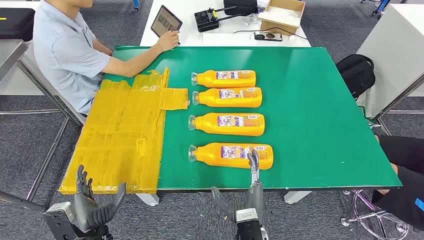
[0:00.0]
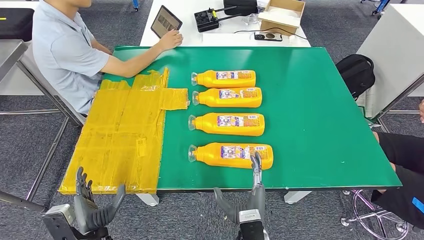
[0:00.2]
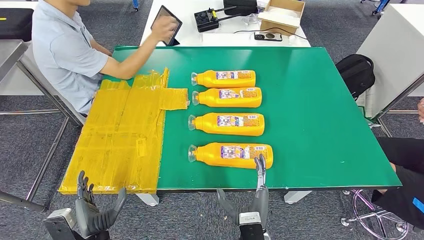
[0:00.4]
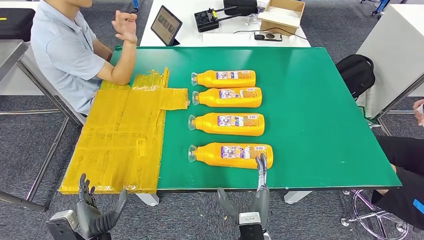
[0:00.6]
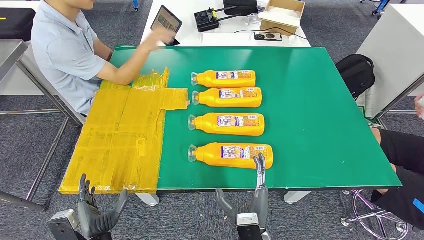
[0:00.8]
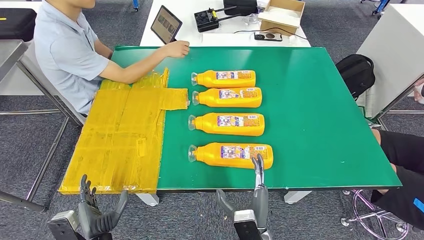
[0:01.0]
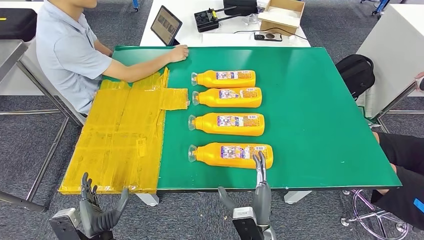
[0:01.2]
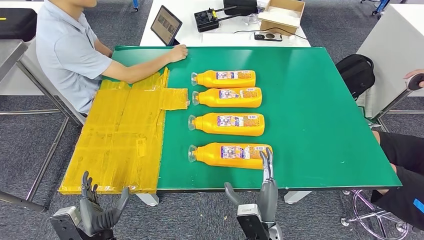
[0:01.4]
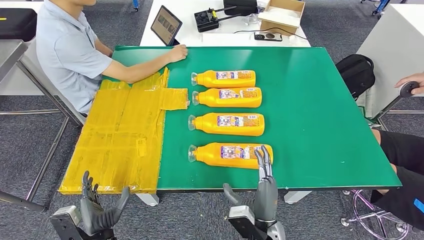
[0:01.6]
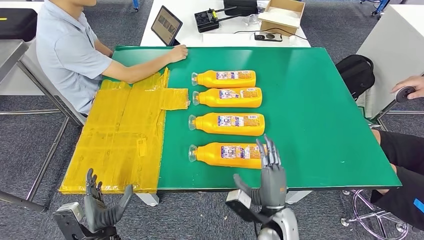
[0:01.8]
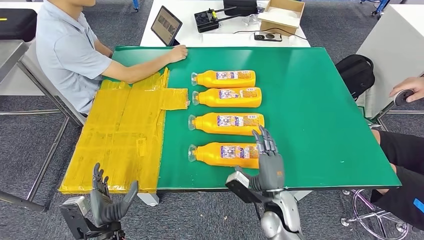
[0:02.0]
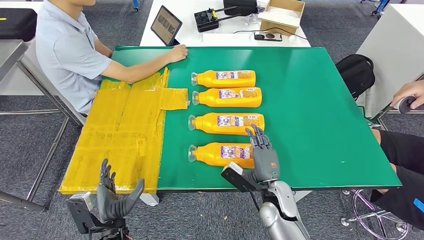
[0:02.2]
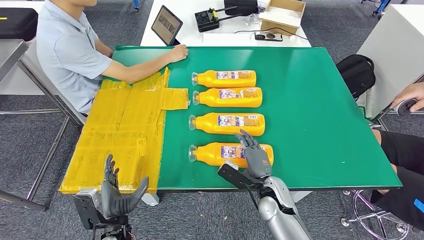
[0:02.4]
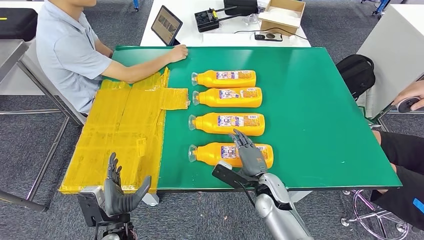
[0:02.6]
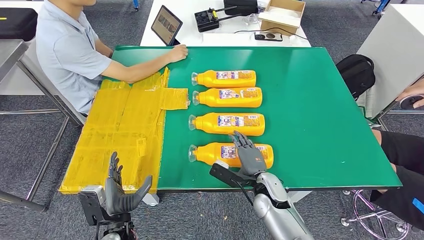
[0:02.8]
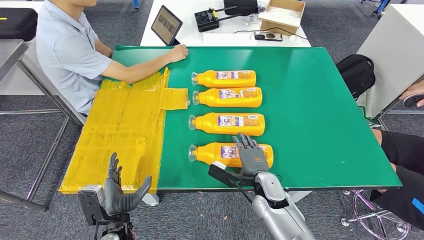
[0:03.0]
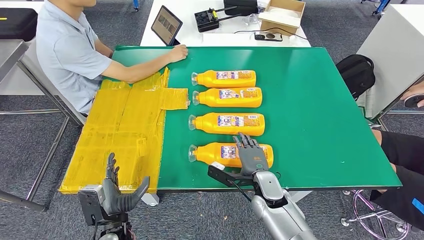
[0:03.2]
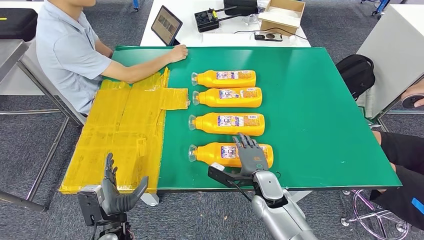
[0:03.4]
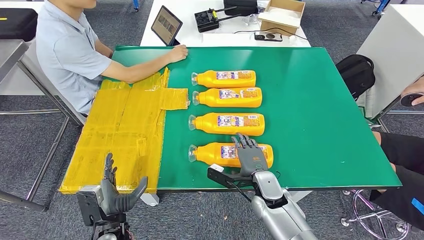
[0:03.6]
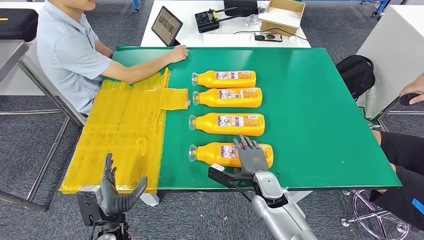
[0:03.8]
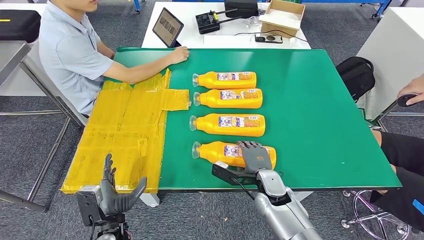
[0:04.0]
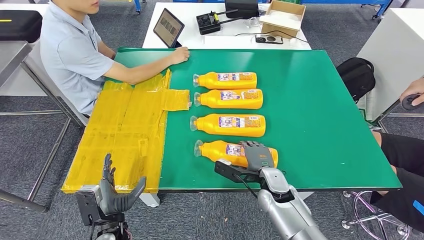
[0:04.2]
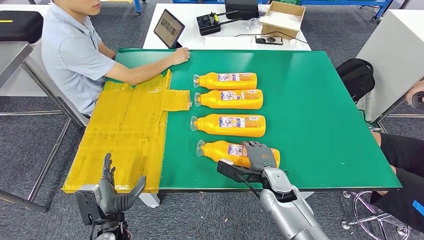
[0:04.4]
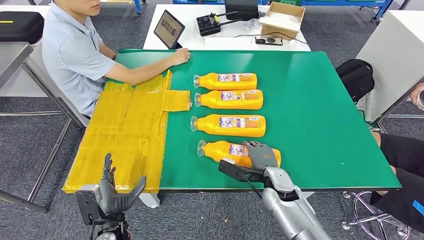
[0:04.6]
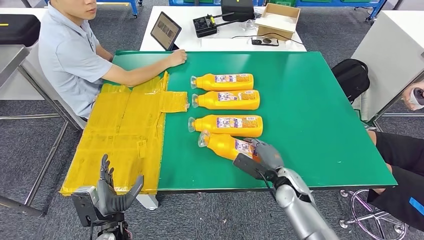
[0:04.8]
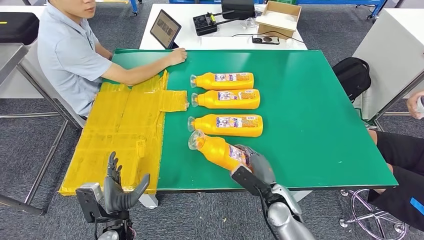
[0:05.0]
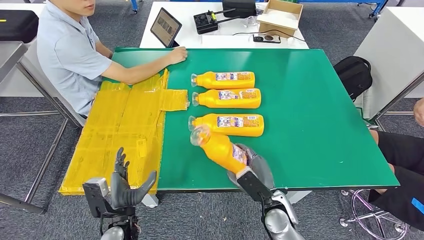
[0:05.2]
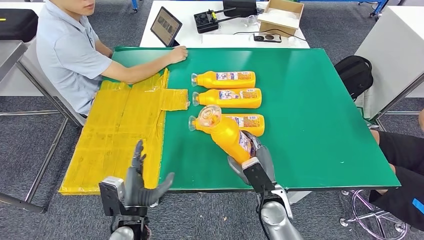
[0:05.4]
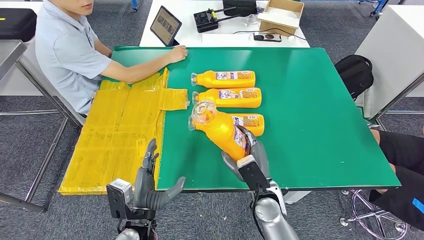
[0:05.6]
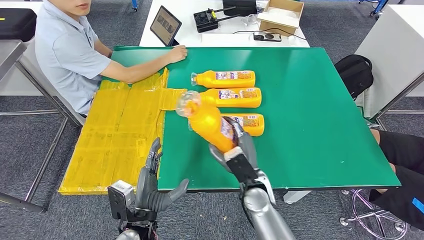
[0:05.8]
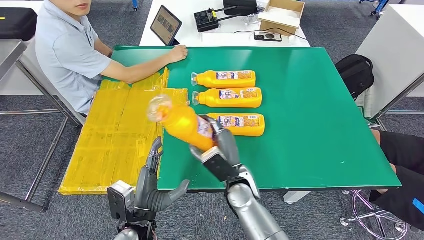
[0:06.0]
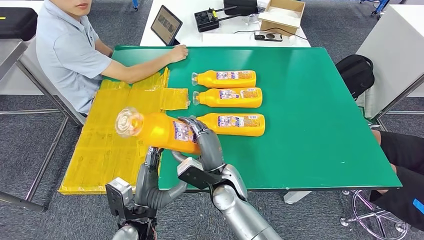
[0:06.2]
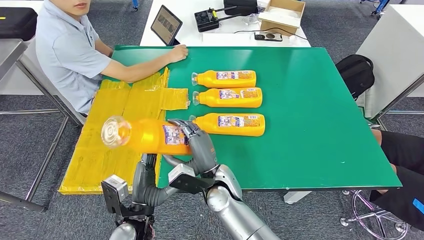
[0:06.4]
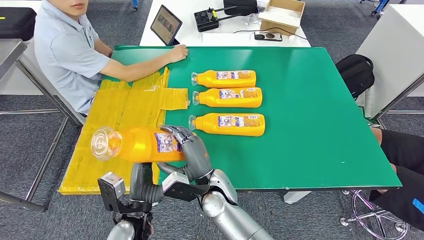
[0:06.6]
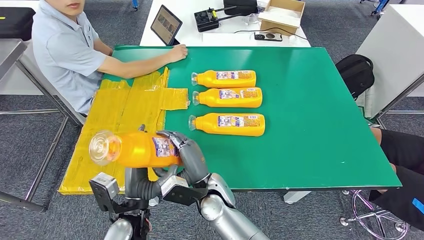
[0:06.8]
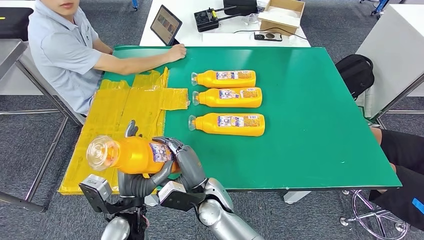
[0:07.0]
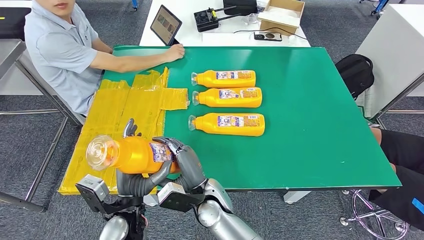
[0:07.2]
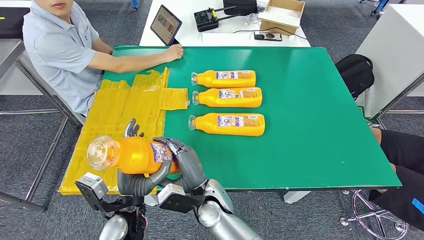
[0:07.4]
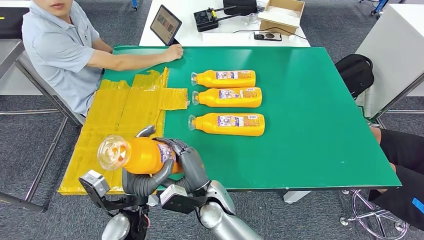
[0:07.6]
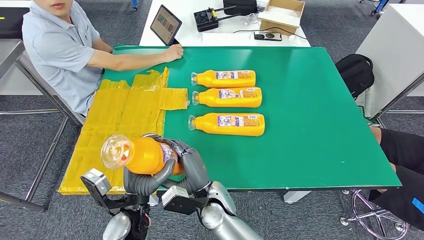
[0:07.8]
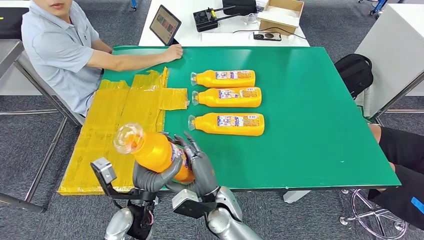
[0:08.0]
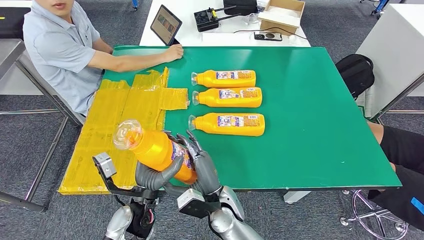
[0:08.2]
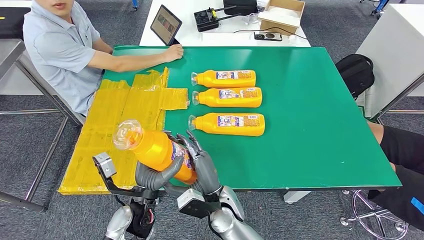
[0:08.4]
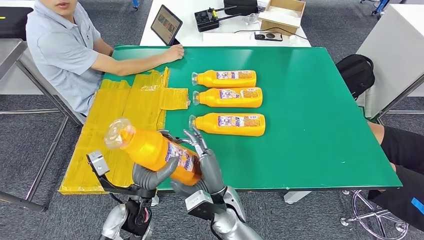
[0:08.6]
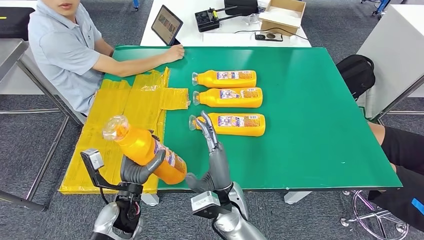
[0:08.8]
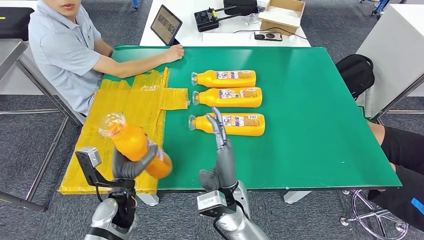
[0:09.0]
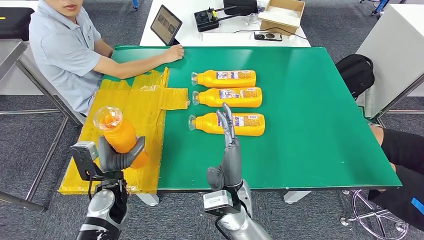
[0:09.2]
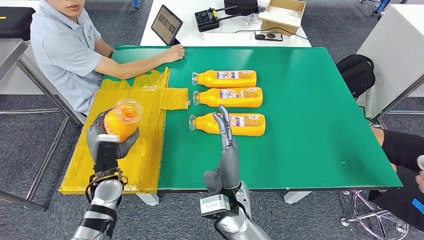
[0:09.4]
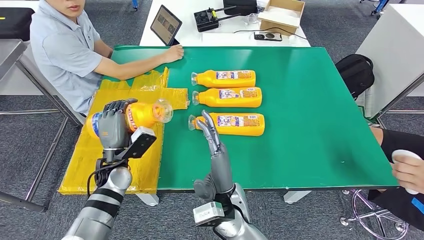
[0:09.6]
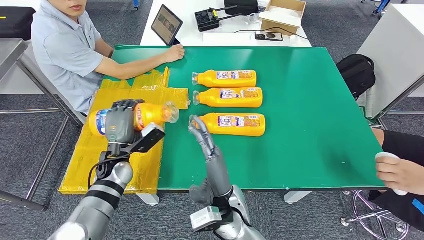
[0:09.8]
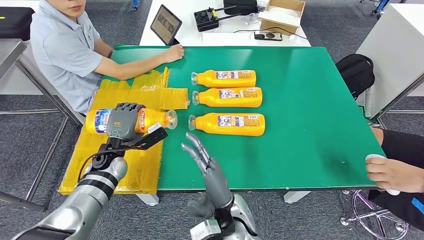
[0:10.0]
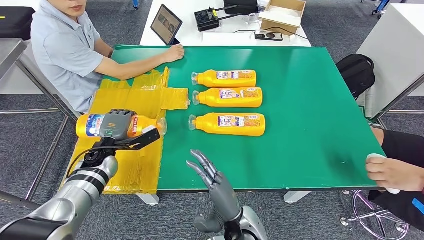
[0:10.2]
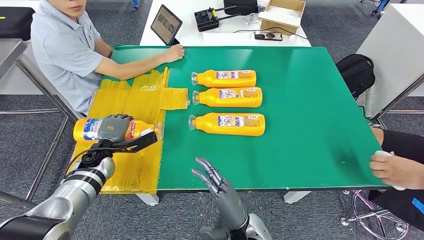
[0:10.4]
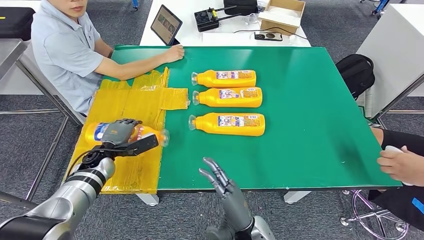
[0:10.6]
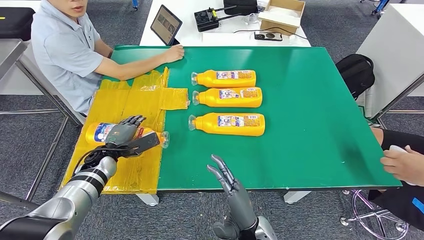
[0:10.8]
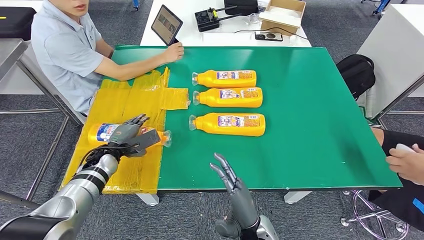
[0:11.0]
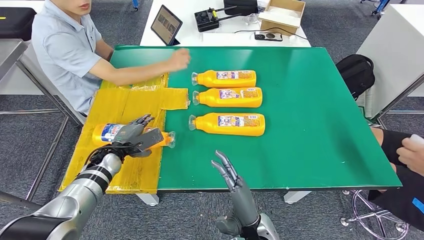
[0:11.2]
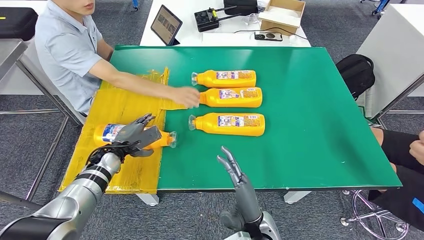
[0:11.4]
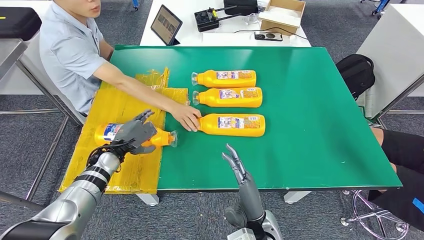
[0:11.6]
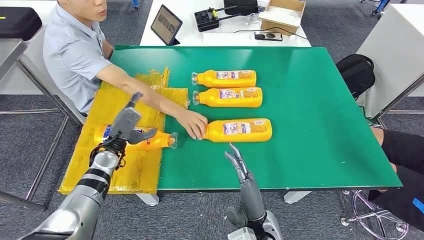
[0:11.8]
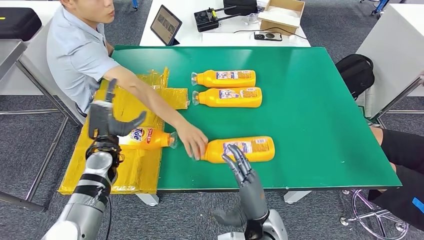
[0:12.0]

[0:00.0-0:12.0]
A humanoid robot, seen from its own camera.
Step, 0:00.0 to 0:07.0: Take the fast-moving consumer goods bottle from the table.
Step, 0:07.2 to 0:12.0: Flip the fast-moving consumer goods bottle to the front side.
0:01.6 to 0:03.0: The right hand shifts about 10 cm forward.
0:06.0 to 0:07.6: The right hand heads to the left, covering about 10 cm.
0:07.6 to 0:09.0: The left hand changes place by some 5 cm, while the right hand shifts by about 5 cm.
0:09.0 to 0:10.4: The left hand goes about 15 cm forward and to the left; the right hand goes approximately 10 cm backward and downward.

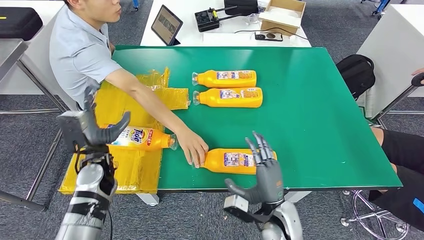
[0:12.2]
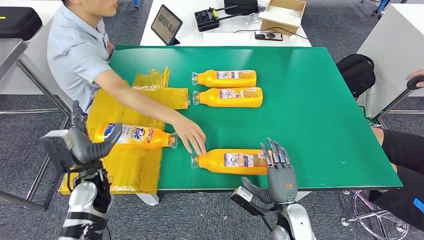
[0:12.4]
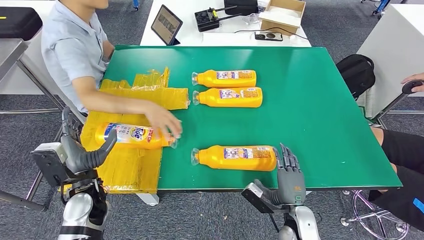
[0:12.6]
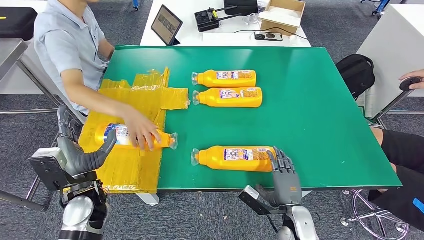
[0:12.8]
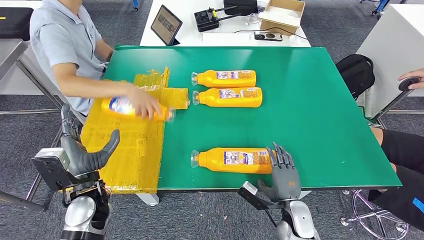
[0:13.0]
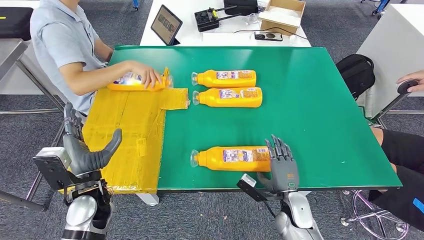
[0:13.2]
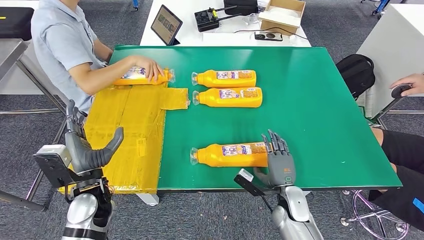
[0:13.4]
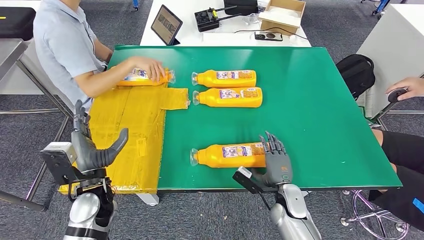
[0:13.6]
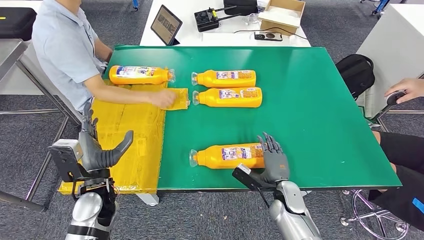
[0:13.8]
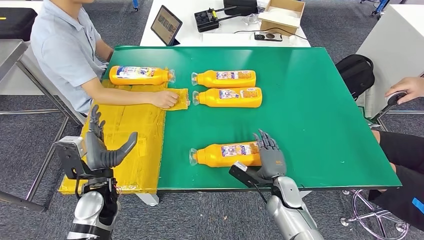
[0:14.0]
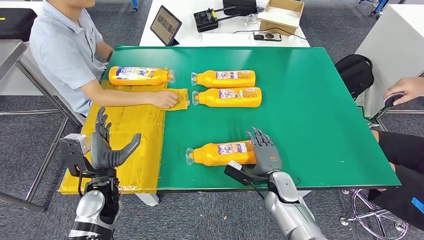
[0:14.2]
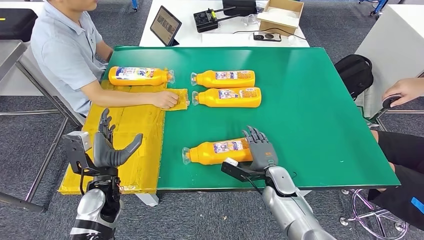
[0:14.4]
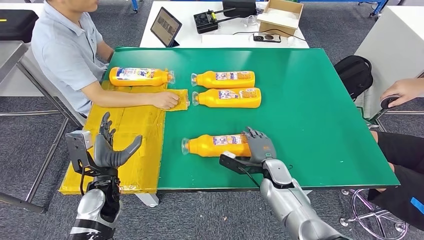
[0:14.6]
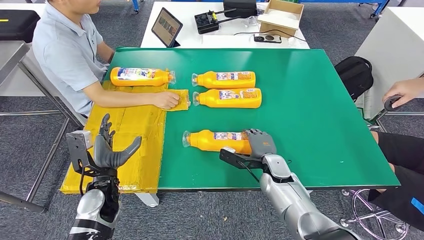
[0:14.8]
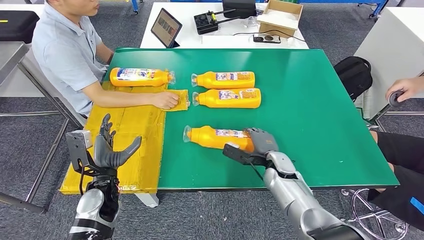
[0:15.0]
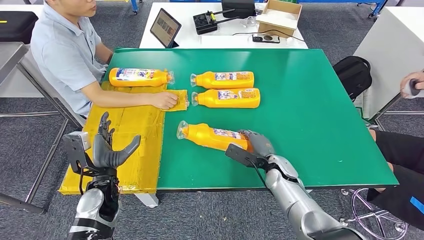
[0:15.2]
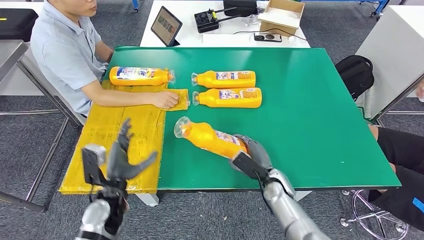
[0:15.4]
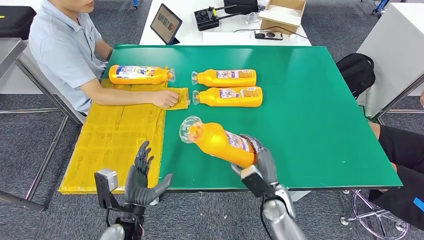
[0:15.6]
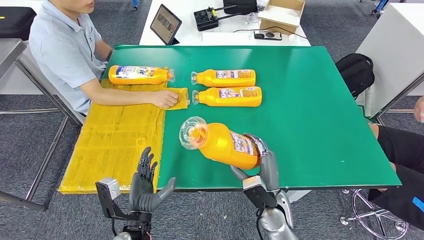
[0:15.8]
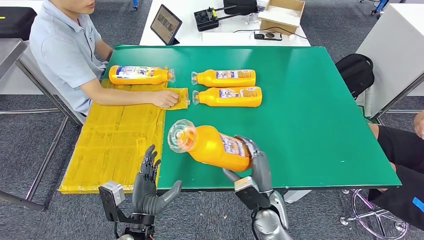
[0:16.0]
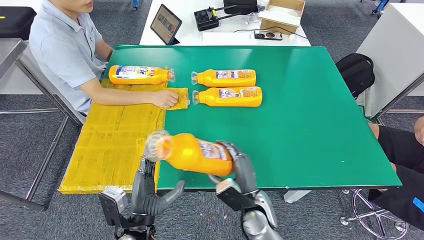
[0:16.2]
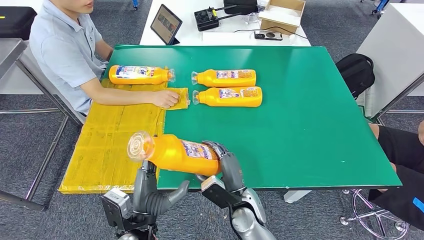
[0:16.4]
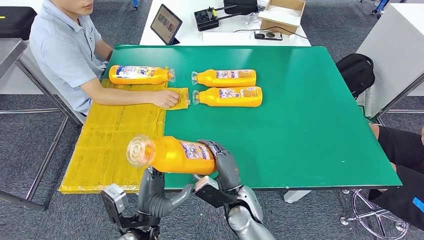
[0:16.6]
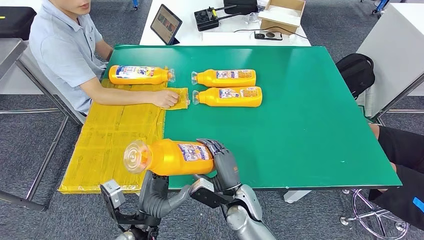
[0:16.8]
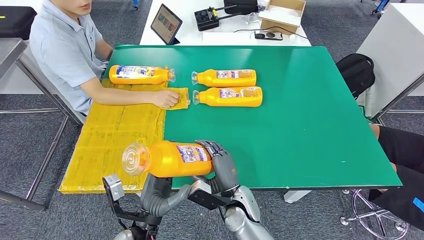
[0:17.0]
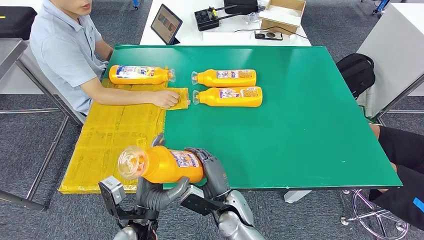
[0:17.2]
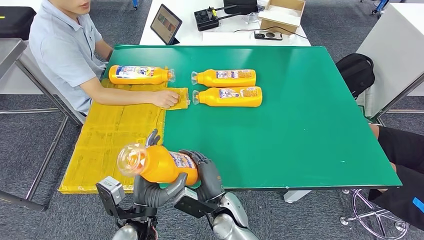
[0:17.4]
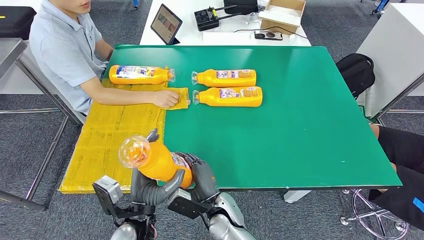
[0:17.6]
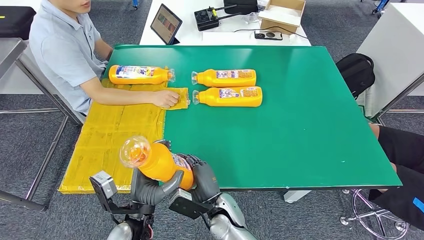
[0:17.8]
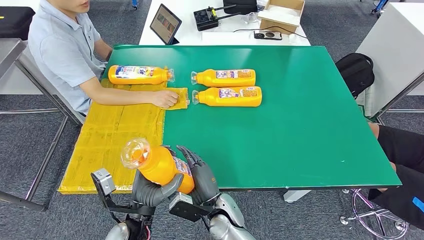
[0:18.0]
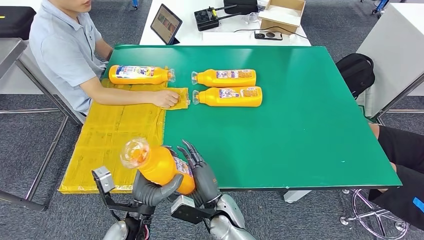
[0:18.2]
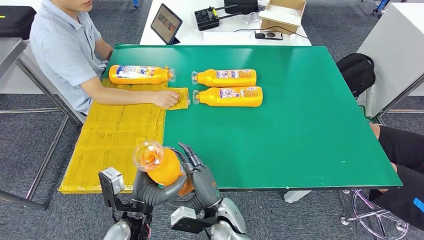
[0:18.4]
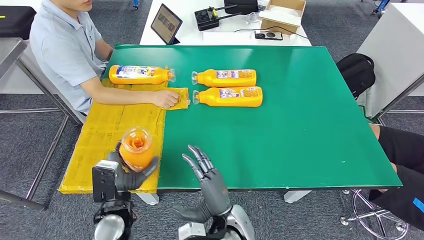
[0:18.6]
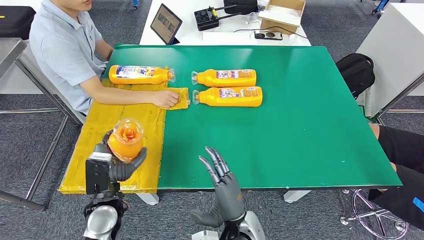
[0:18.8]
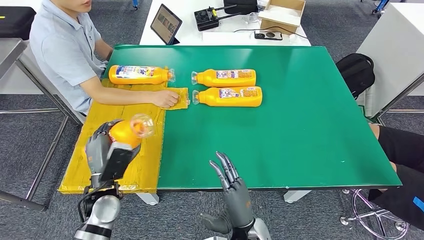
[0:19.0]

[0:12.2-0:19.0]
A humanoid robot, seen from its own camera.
Step, 0:12.2 to 0:15.6: Pick up the fast-moving consumer goods bottle from the table.
0:16.2 to 0:17.6: The right hand moves to the left, approximately 10 cm.
0:17.6 to 0:19.0: The right hand heads to the right and backward, covering approximately 10 cm. Meanwhile the left hand moves to the left and forward, some 15 cm.
